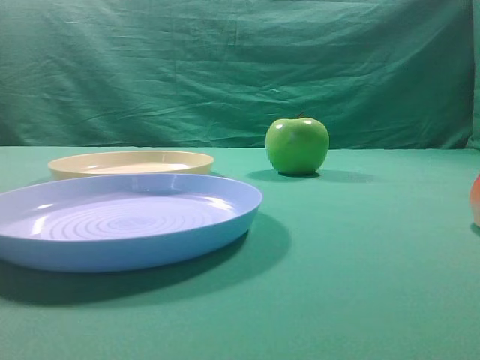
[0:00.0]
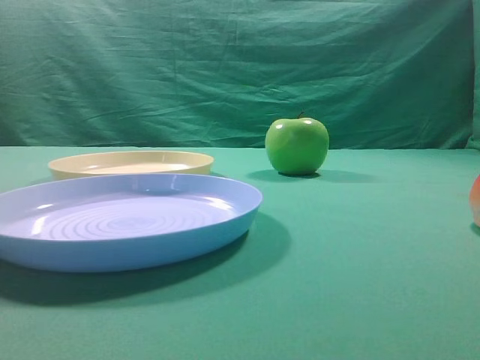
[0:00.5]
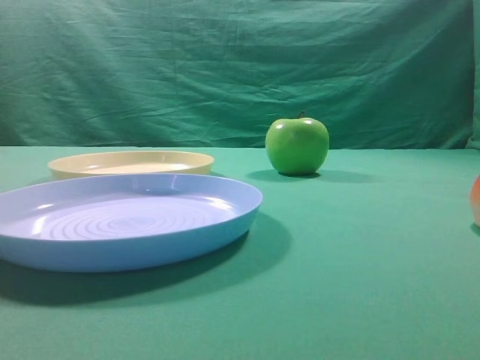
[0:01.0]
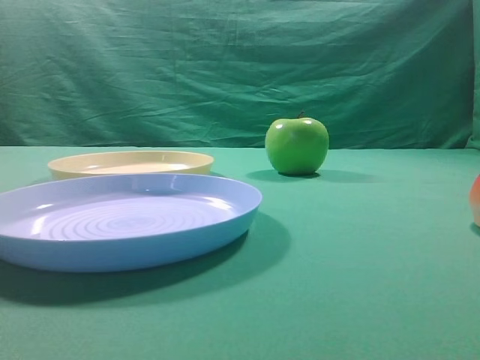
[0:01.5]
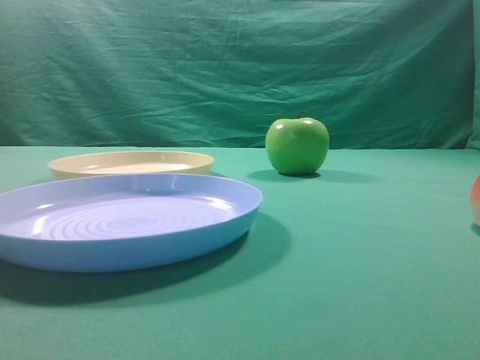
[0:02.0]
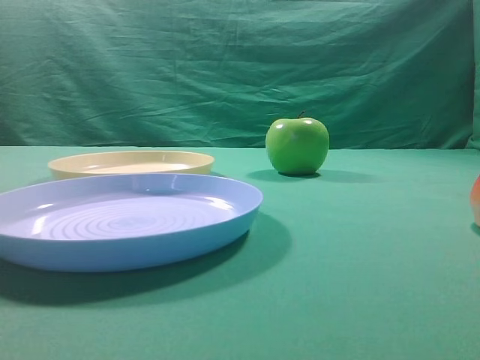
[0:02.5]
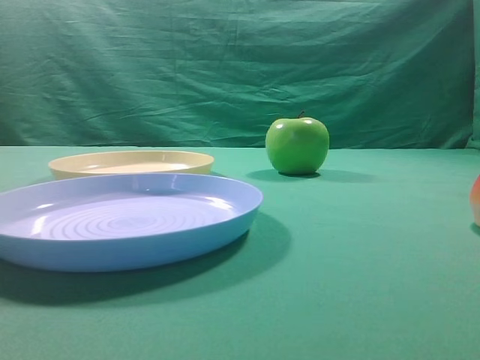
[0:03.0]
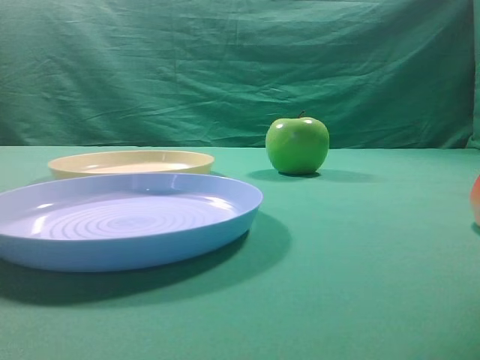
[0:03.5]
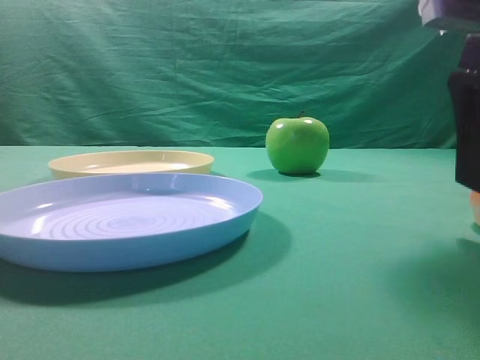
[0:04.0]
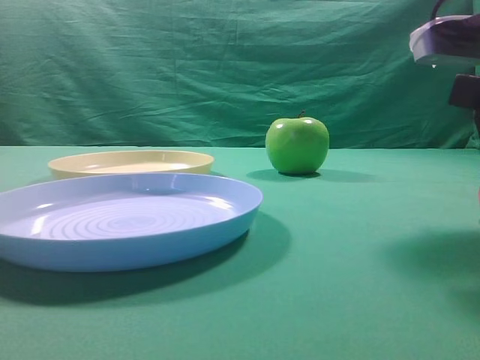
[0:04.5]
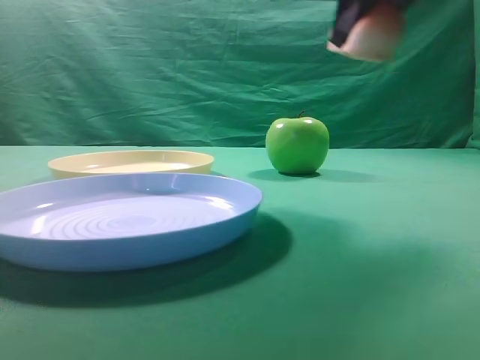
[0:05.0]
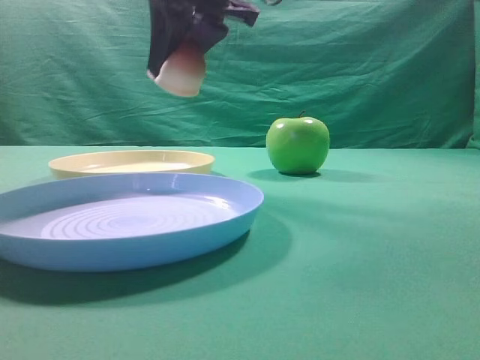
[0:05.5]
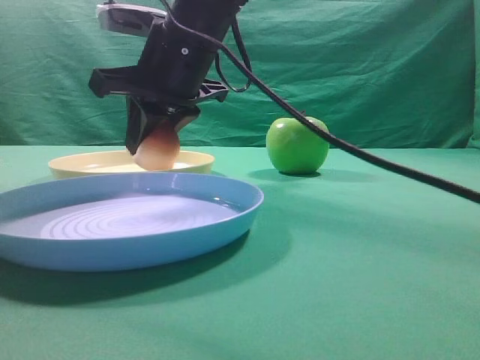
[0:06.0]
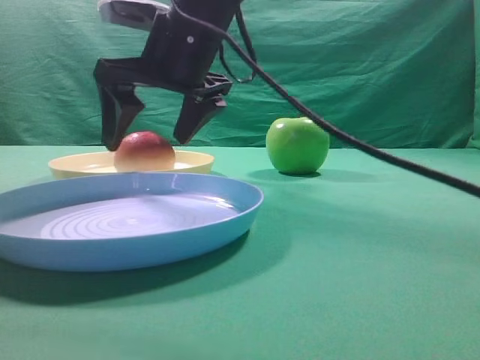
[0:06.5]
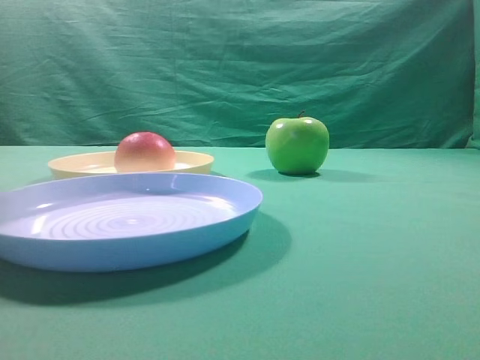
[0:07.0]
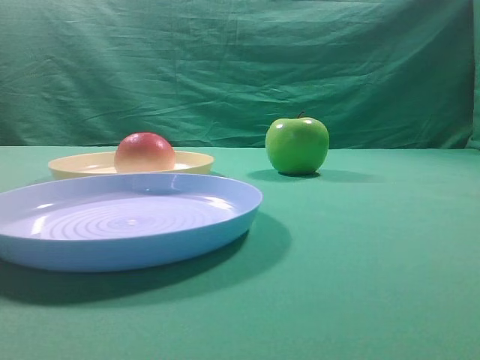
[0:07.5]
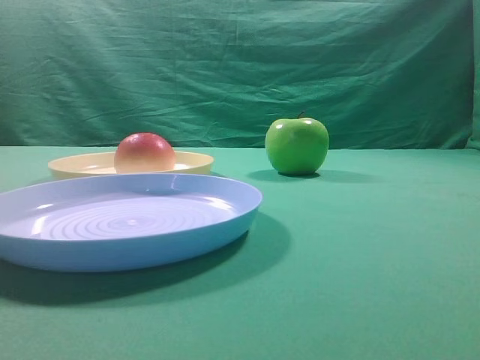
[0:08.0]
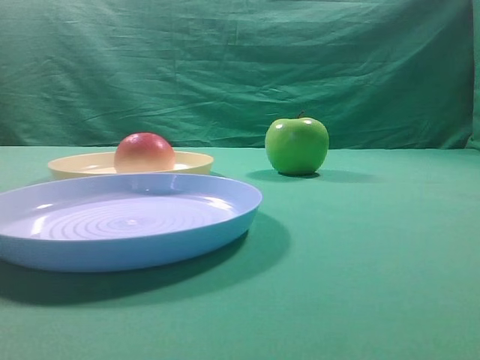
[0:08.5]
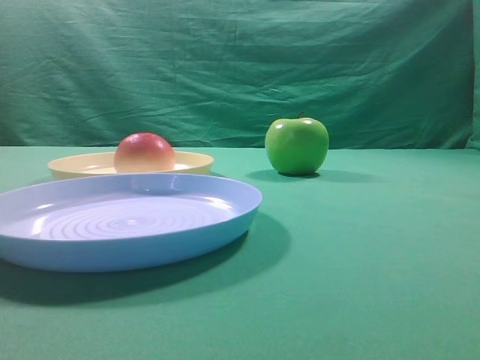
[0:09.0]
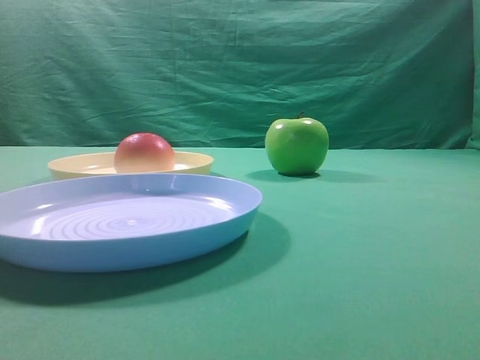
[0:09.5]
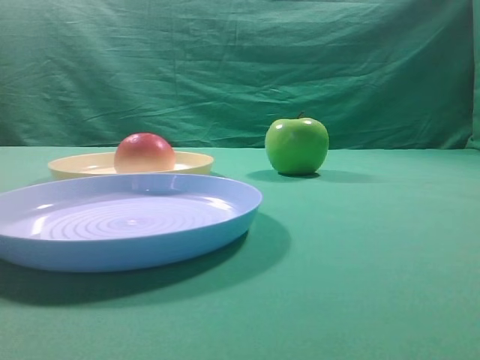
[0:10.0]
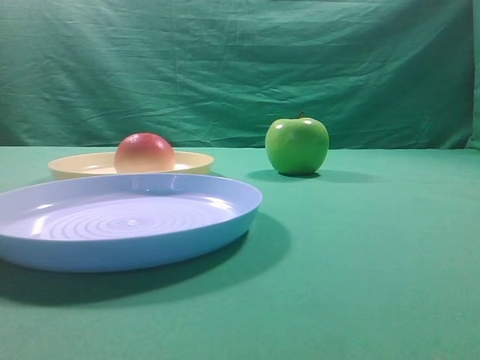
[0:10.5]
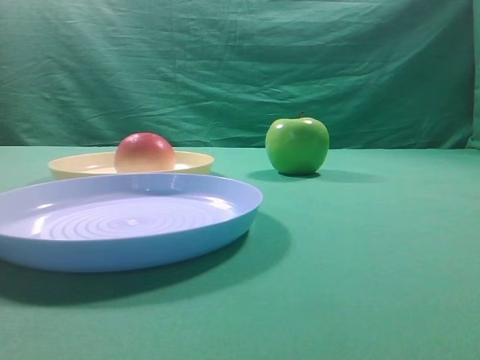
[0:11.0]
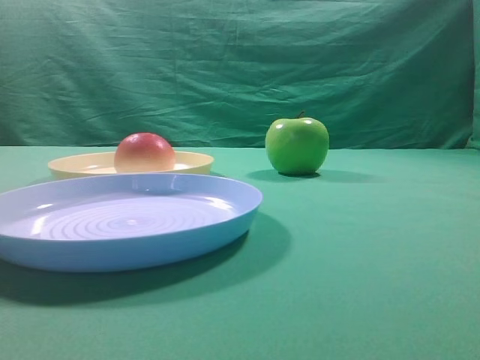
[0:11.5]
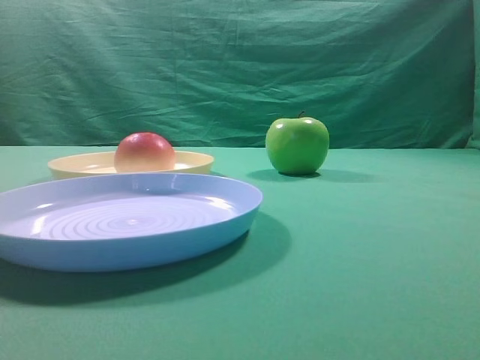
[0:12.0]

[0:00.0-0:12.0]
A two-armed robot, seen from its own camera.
Step, 0:05.0 to 0:06.5: Place the picked object on the yellow plate.
